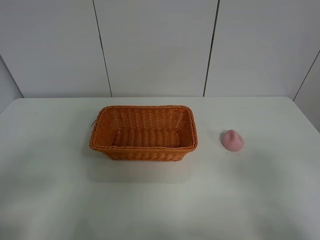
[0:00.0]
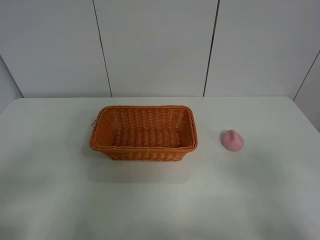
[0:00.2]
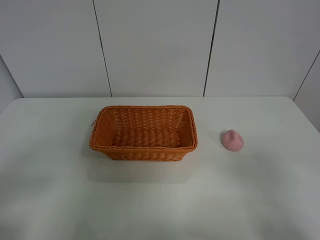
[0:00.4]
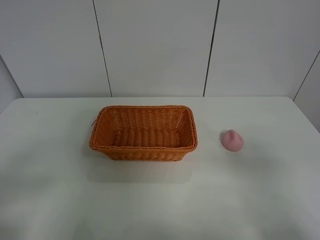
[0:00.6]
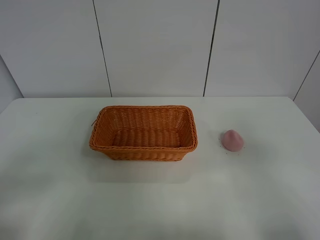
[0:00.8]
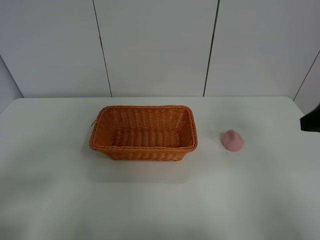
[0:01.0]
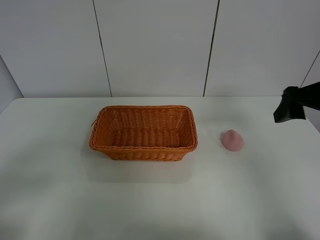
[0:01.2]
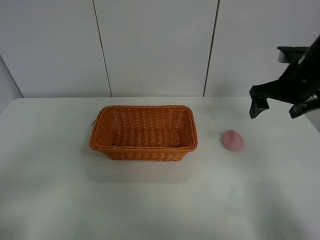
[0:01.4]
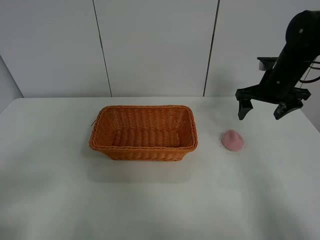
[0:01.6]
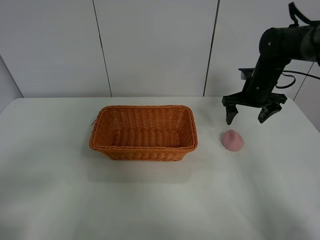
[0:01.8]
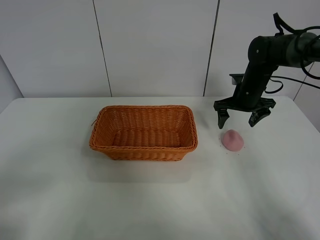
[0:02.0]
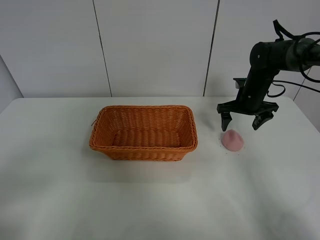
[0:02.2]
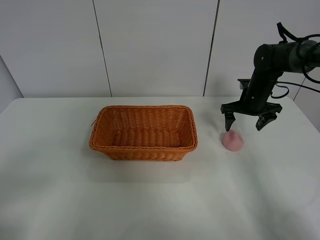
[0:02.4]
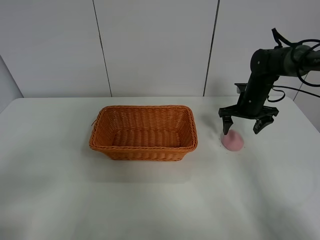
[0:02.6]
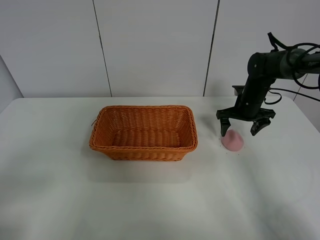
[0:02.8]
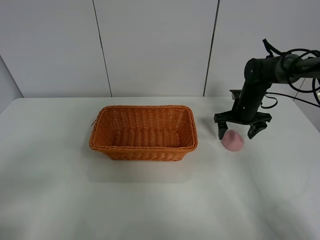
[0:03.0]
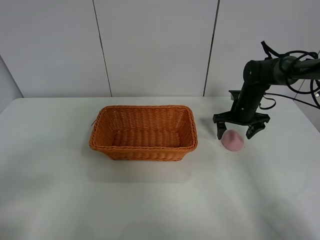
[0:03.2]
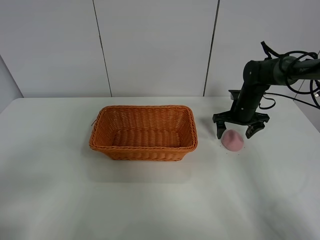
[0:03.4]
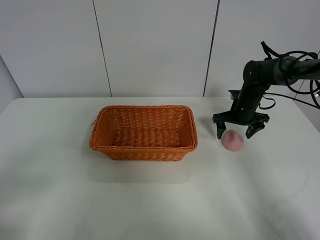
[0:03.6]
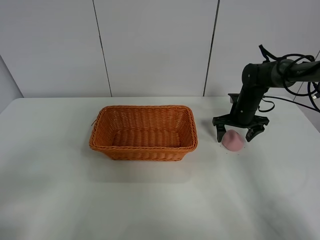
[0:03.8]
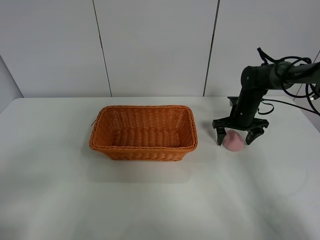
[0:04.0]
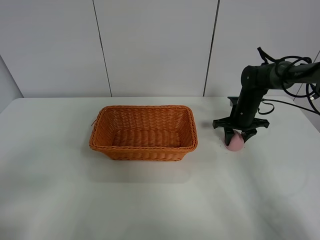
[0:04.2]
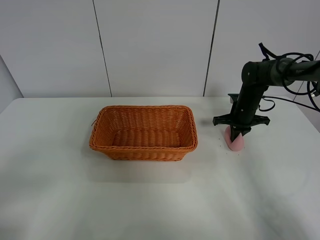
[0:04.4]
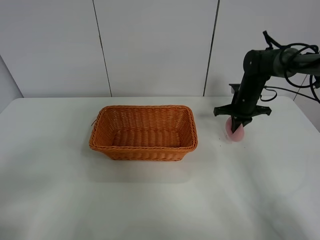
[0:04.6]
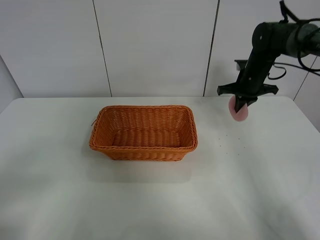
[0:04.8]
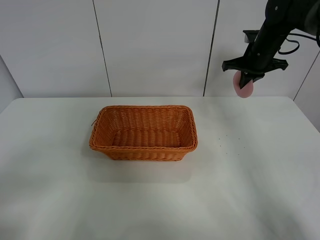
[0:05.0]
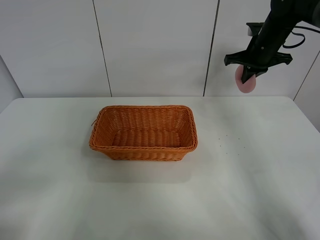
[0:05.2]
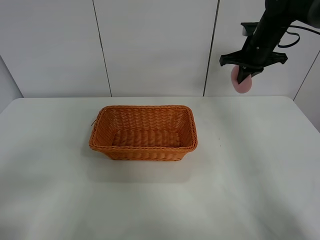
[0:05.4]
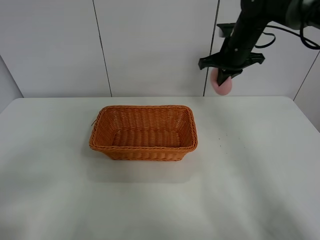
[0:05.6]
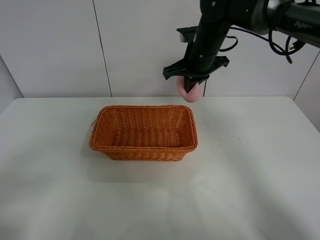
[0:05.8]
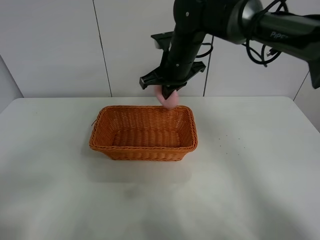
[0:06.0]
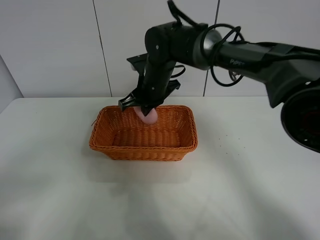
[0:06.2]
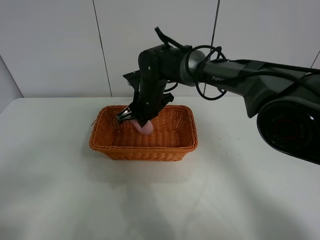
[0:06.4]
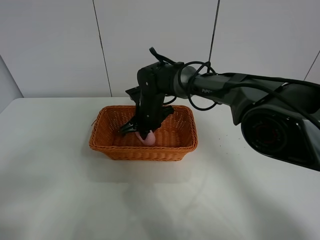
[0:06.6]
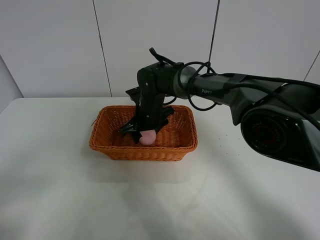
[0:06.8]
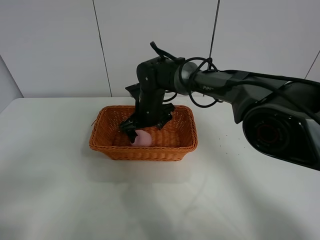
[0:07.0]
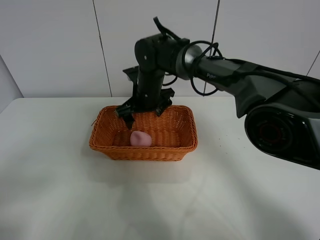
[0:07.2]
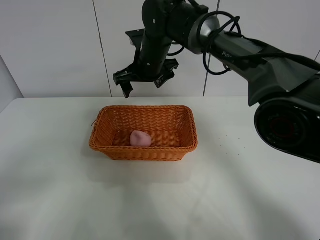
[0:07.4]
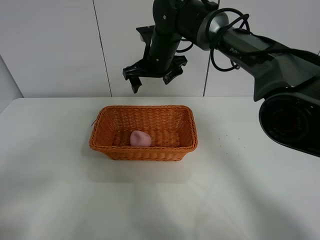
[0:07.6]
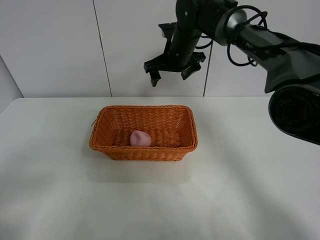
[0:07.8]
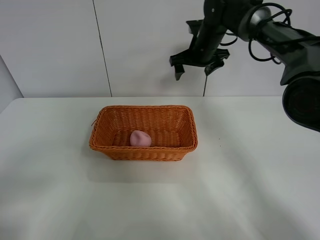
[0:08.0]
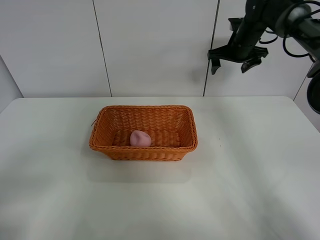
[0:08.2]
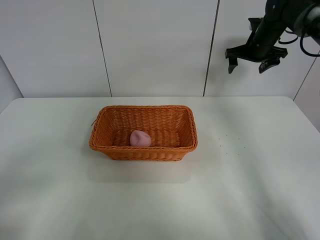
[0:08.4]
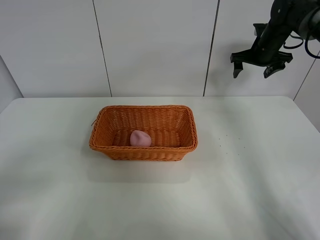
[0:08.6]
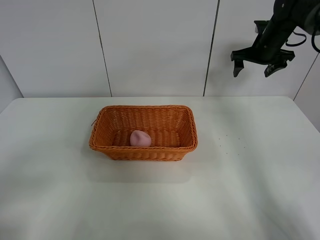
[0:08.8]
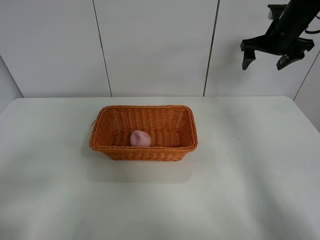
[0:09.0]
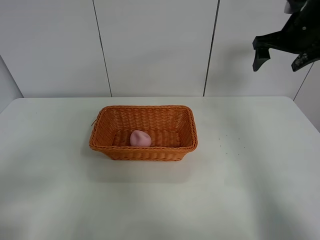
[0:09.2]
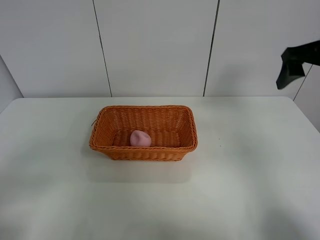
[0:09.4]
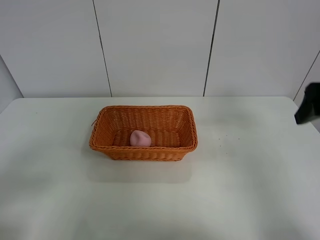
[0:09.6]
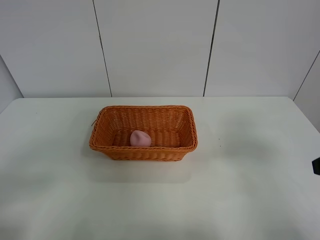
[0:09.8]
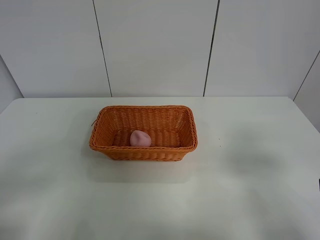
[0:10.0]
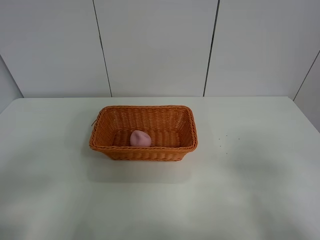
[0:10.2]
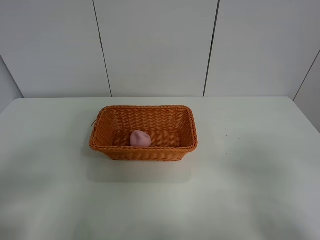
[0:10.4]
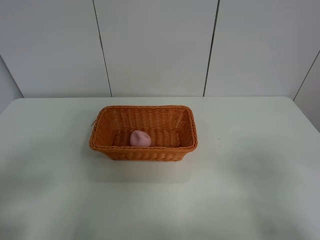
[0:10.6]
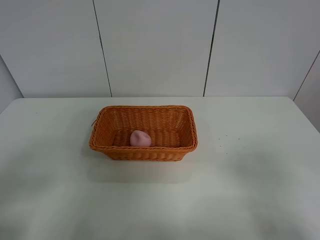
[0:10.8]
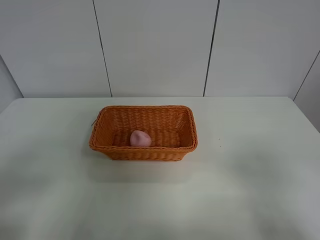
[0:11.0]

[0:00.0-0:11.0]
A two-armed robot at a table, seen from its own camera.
Step, 0:00.0 to 0:04.4: Grasp the peach with right gripper.
Step, 0:04.6 to 0:08.0: Place the peach in the basket with right gripper.
0:00.0 to 0:01.6: The right gripper travels forward by roughly 40 cm.
0:01.6 to 0:03.2: The right gripper shifts roughly 15 cm downward and forward.
0:03.2 to 0:04.8: The right gripper moves upward, approximately 10 cm, and closes.
0:04.8 to 0:06.2: The right gripper moves to the left, roughly 25 cm.
0:06.2 to 0:07.8: The right gripper heads forward and to the right, covering roughly 10 cm, and opens.
0:07.8 to 0:09.4: The right gripper heads to the right and backward, covering some 30 cm.
0:09.4 to 0:11.0: The right gripper moves backward, some 30 cm.
